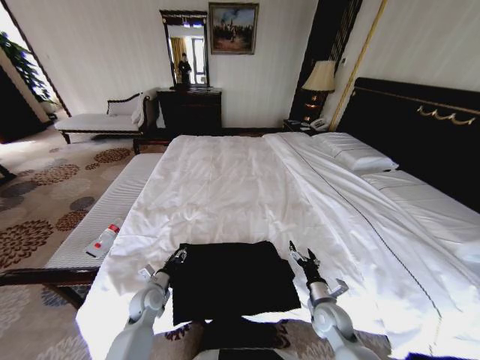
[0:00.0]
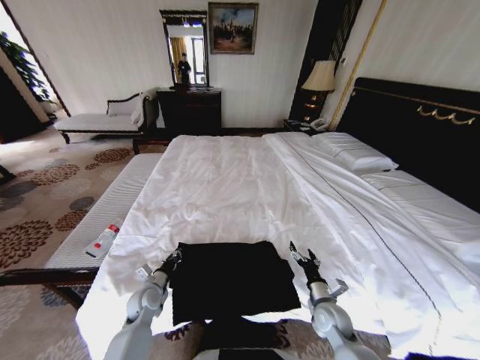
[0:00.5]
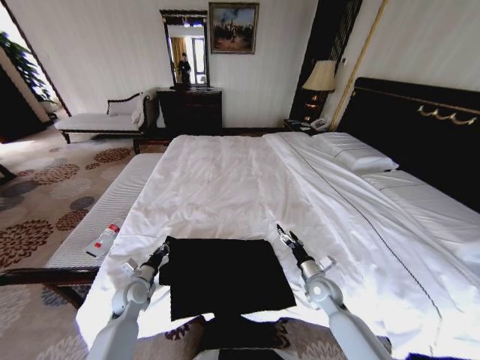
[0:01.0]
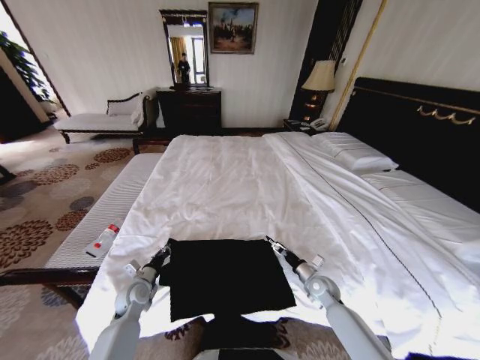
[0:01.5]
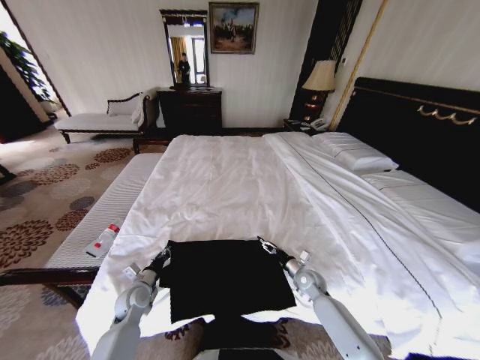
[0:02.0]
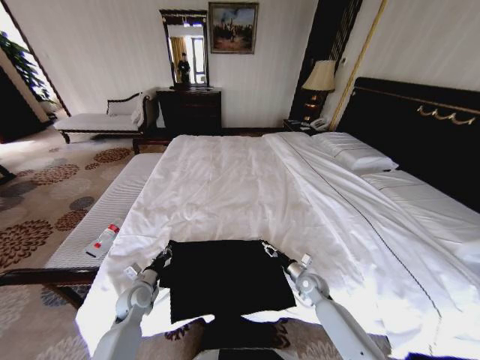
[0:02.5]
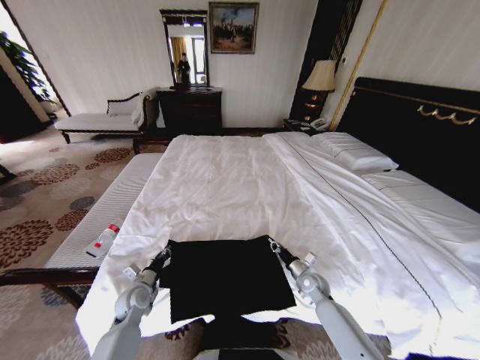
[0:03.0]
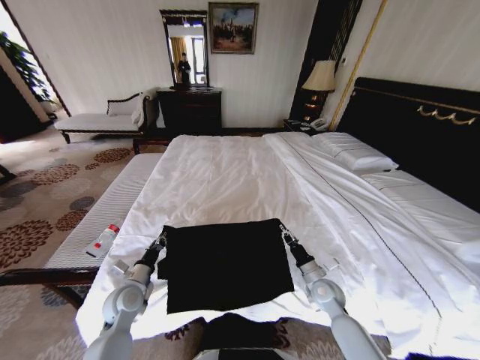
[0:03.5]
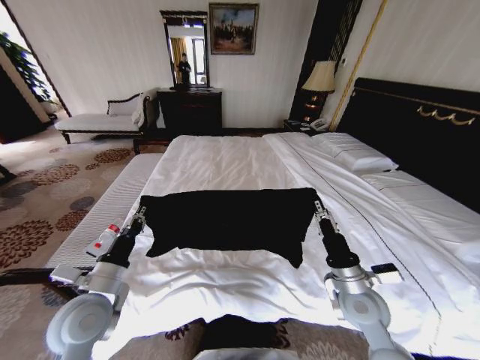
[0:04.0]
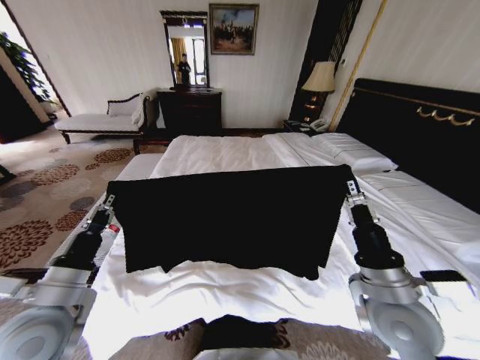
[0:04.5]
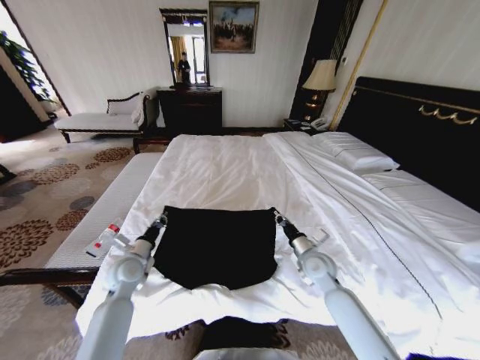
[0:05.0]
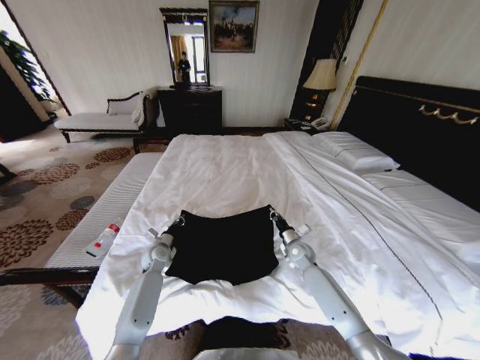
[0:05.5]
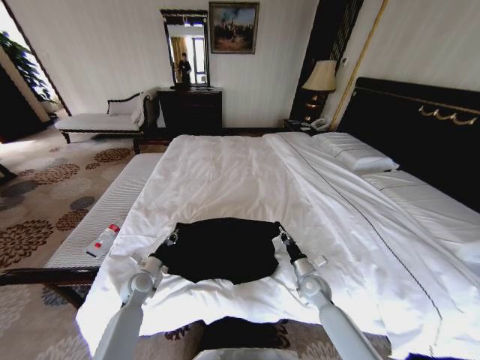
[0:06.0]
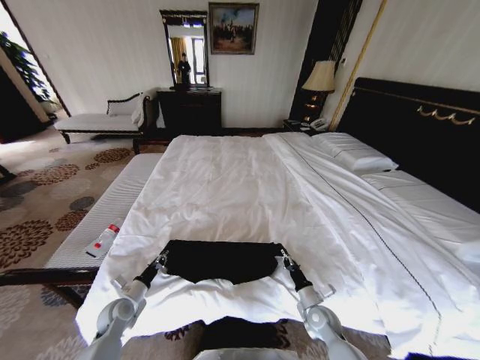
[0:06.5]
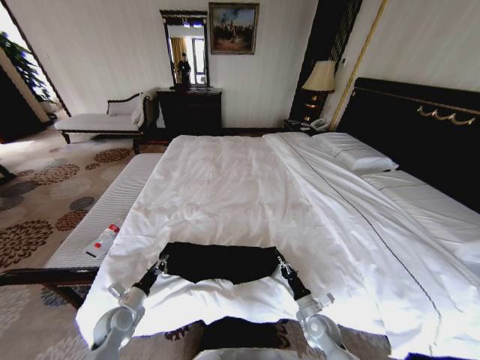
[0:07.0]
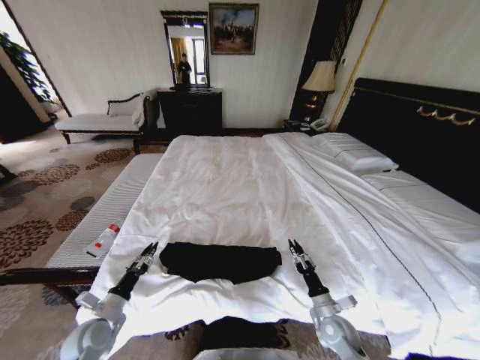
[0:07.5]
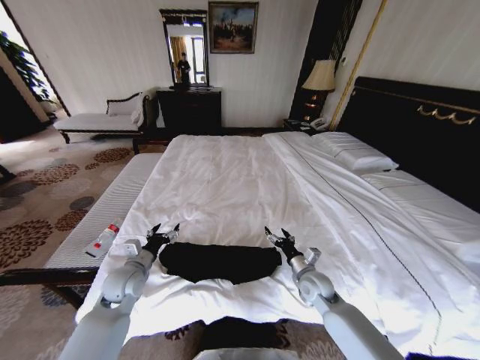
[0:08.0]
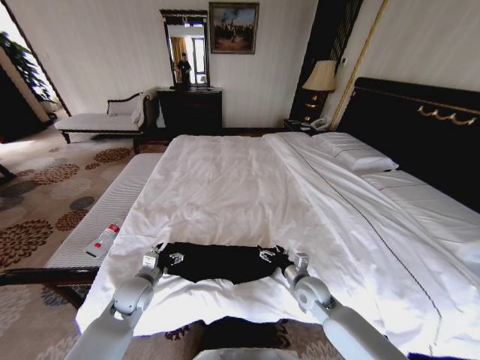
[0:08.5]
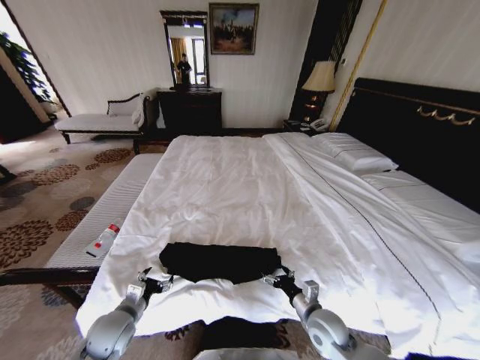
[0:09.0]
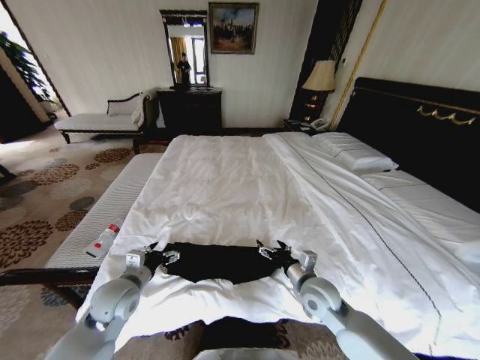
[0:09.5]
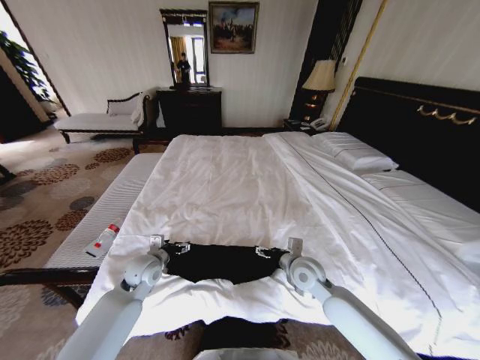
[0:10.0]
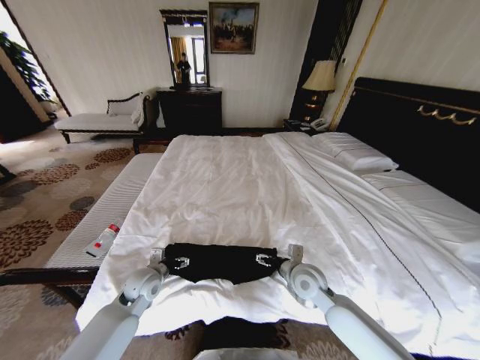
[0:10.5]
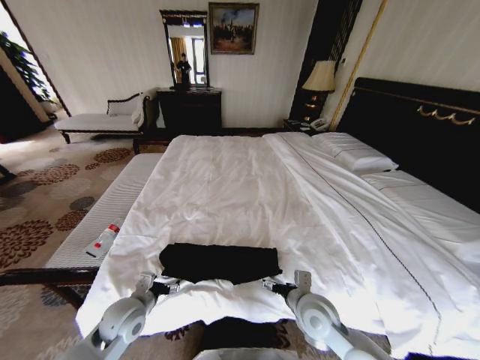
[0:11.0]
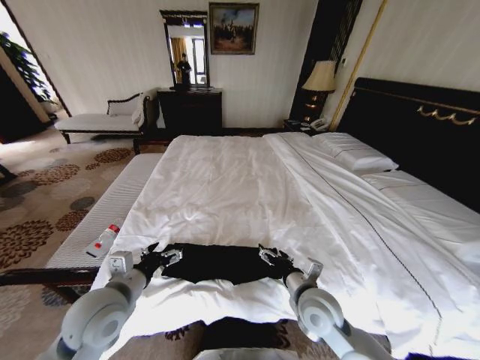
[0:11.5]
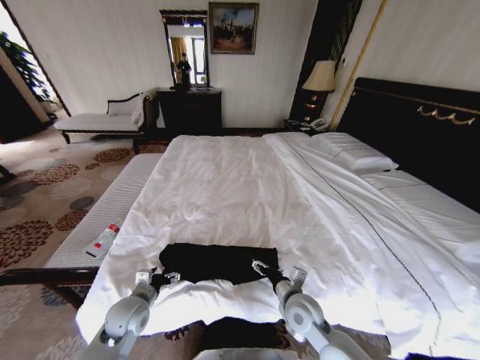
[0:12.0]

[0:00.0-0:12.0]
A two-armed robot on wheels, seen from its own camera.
Task of the whole recording: Fold the clothes on the bed.
0:00.0 to 0:02.0: The right gripper travels forward by approximately 10 cm. The left gripper closes.
0:02.0 to 0:04.0: Both grippers travel together upward and backward, some 20 cm. The right gripper closes.
0:04.0 to 0:06.0: Both grippers move downward and forward, about 20 cm.
0:06.0 to 0:08.0: The left gripper is displaced upward by roughly 10 cm, travels backward and back again, roughly 15 cm each way, and opens. Meanwhile the right gripper travels upward by about 5 cm, moves roughly 15 cm backward and comes back, and opens its fingers.
0:08.0 to 0:10.0: The right gripper heads upward, covering approximately 5 cm, and travels backward and back again, roughly 10 cm each way, while the left gripper moves some 10 cm backward and comes back.
0:10.0 to 0:12.0: Both grippers move backward, approximately 10 cm. The left gripper travels upward and back again, some 10 cm each way.

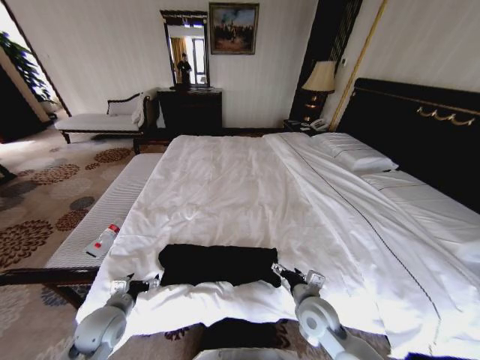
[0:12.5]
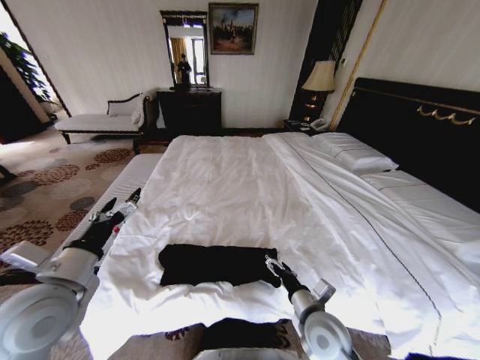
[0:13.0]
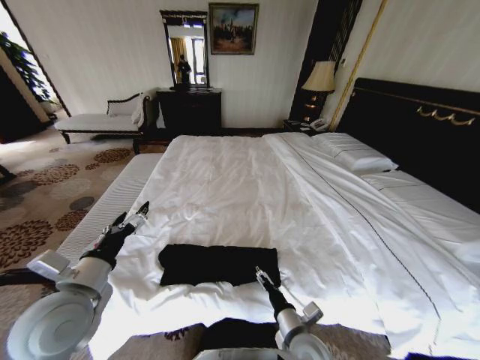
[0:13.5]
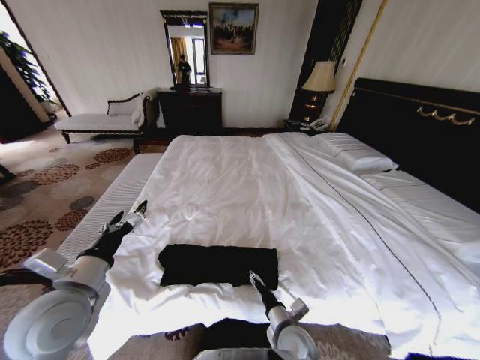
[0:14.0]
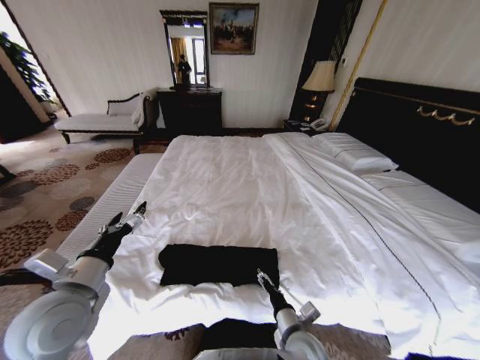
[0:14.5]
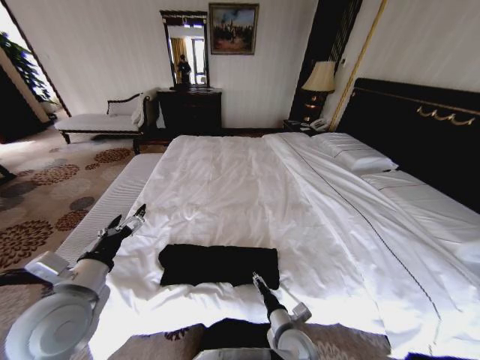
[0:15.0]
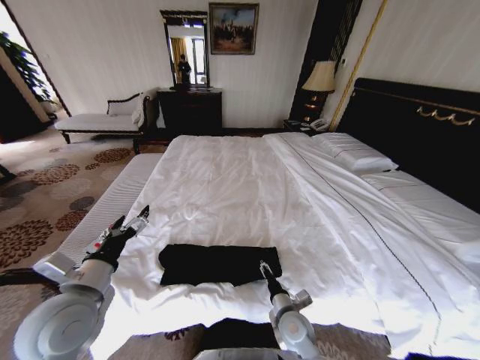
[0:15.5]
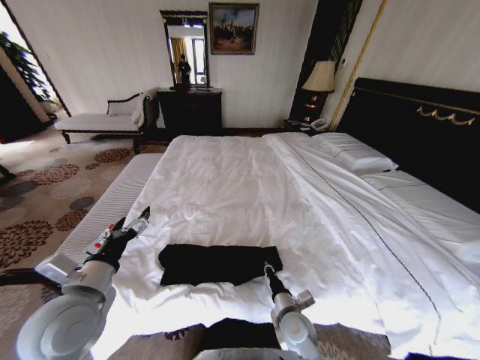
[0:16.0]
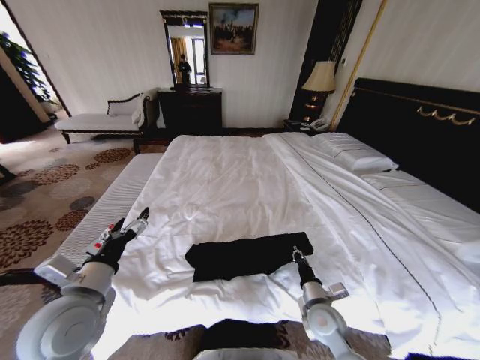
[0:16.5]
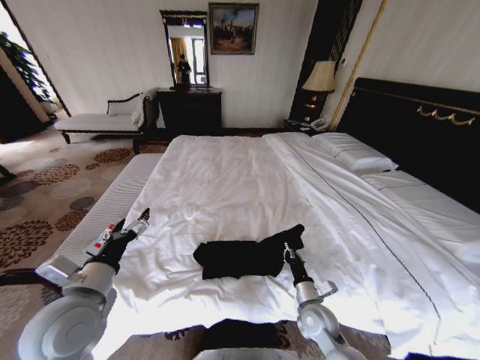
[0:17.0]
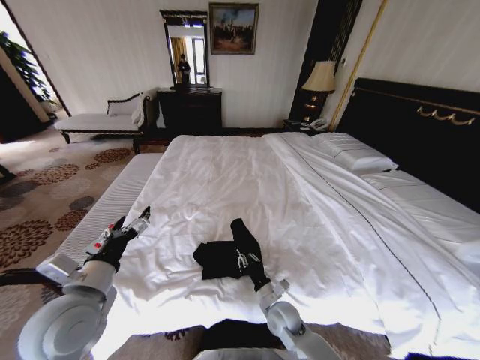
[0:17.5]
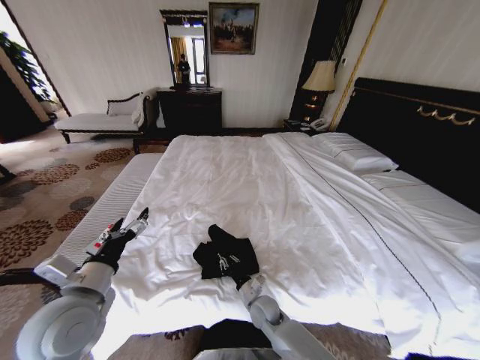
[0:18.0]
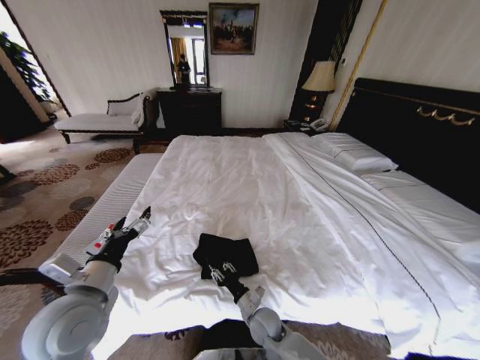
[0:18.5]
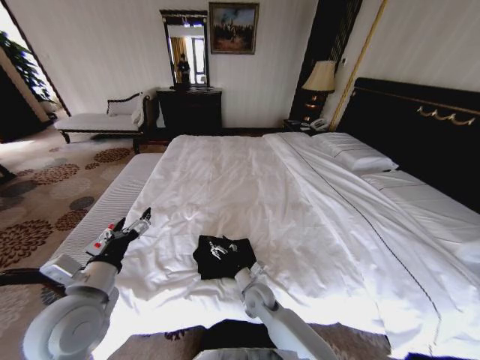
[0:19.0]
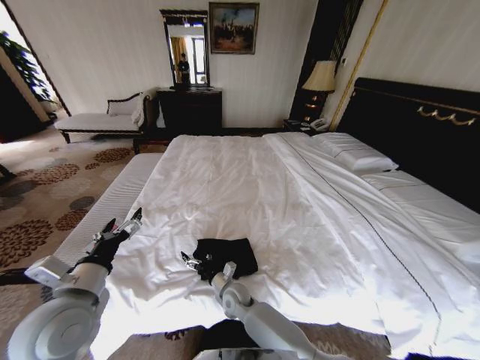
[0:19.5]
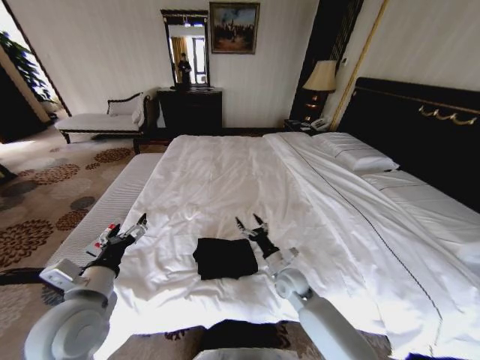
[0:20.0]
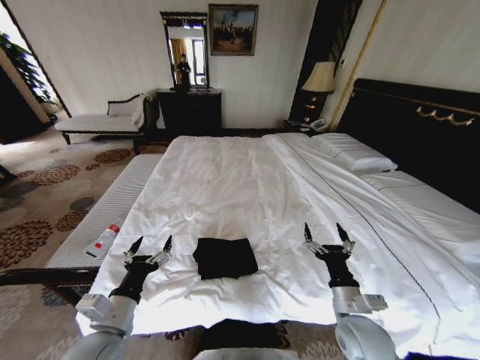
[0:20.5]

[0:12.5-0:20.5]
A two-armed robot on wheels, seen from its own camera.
Task of the whole recording: Fold the clothes on the bed.
0:12.5 to 0:14.5: The left gripper moves upward, some 15 cm, while the right gripper shifts roughly 5 cm backward.
0:14.5 to 0:16.5: The right gripper travels to the right and forward by approximately 10 cm, and closes.
0:16.5 to 0:18.5: The right gripper heads to the left and downward, covering about 15 cm.
0:18.5 to 0:20.5: The left gripper goes approximately 5 cm downward. The right gripper moves to the right and upward, about 25 cm, and opens up.

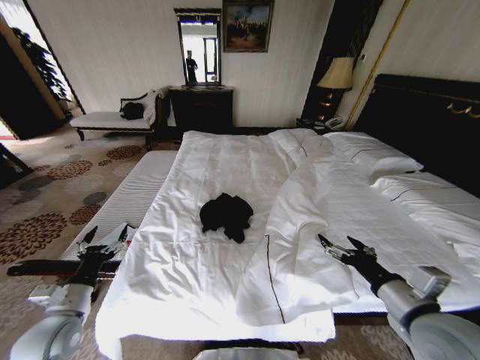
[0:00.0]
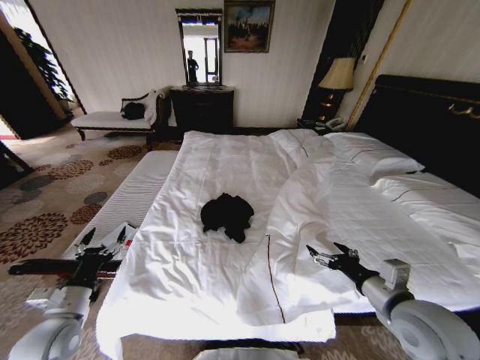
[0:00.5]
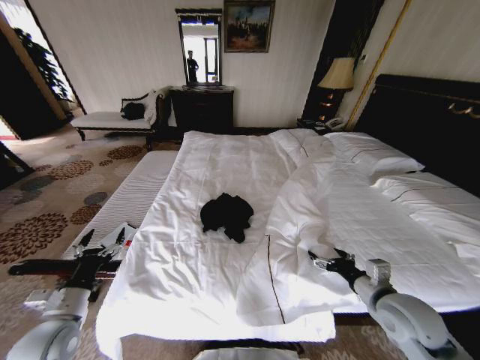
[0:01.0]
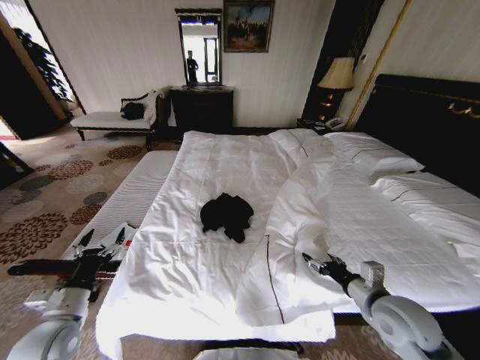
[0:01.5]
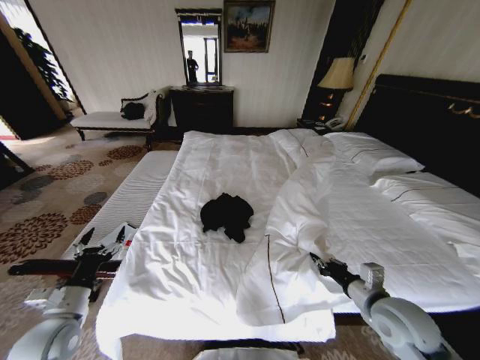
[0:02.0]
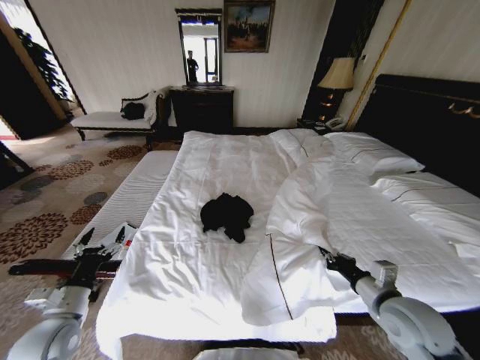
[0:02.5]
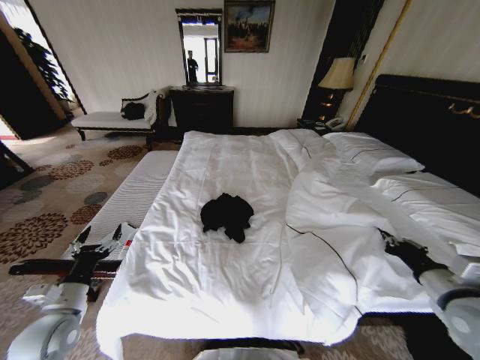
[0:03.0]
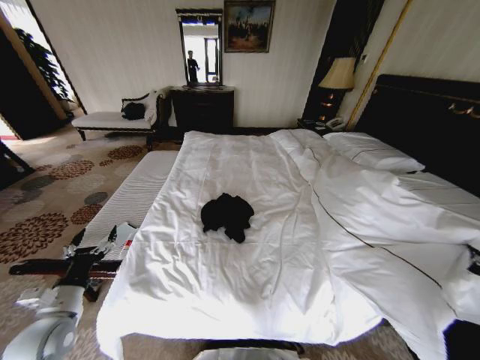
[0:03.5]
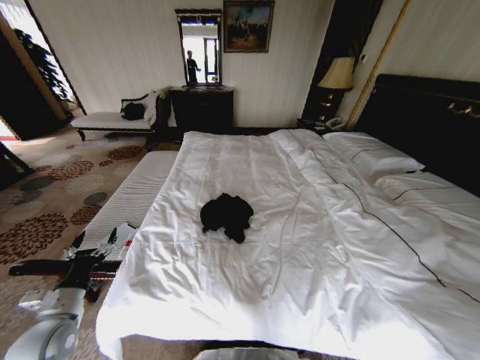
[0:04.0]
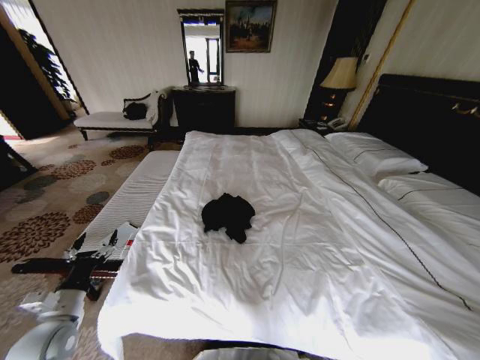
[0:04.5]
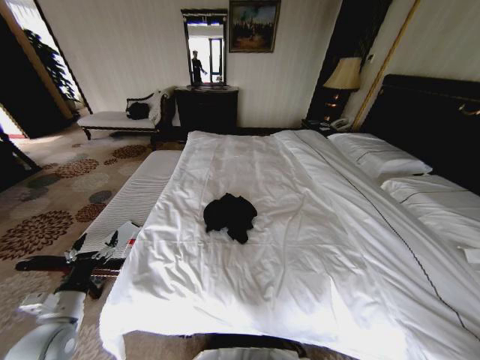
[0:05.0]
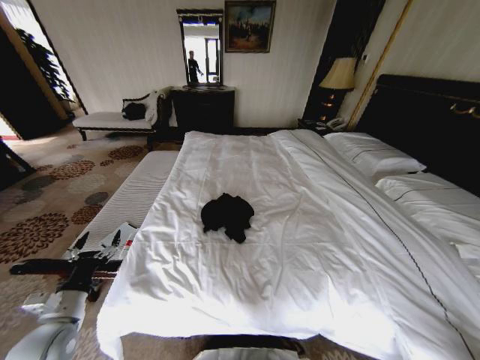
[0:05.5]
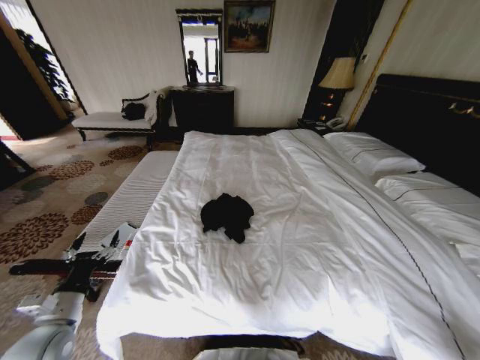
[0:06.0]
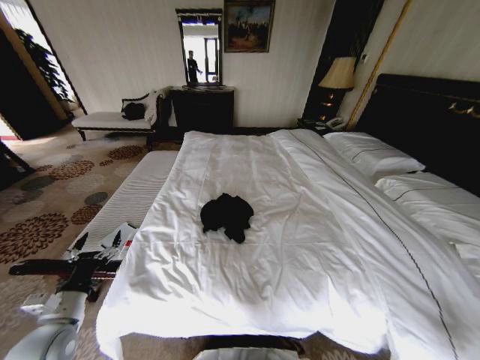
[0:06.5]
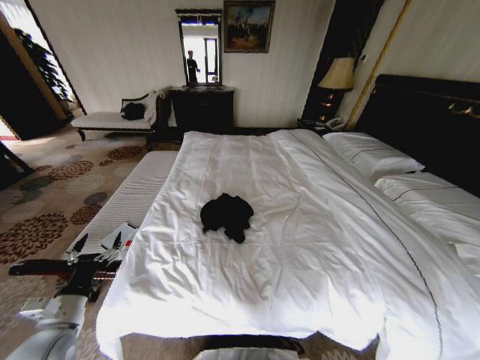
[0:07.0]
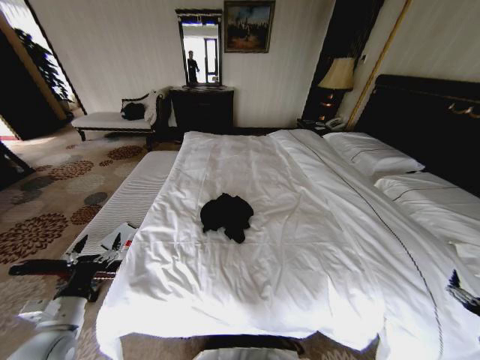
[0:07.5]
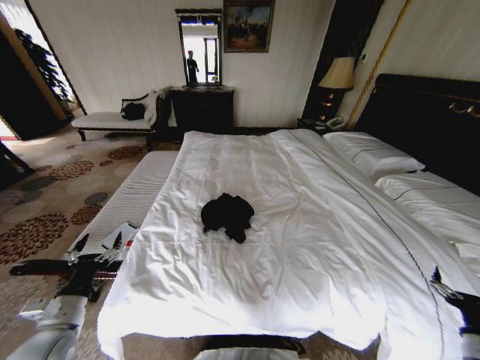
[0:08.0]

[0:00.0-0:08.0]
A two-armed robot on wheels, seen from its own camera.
Task of the whole recording: Fold the clothes on the bed.
0:00.0 to 0:02.0: The right gripper travels downward by some 5 cm, and closes up.
0:02.0 to 0:04.0: The right gripper shifts roughly 35 cm to the right and backward.
0:04.0 to 0:06.0: The right gripper heads downward, covering approximately 25 cm.
0:06.0 to 0:08.0: The right gripper is displaced to the left, upward and forward by approximately 25 cm, and opens.
